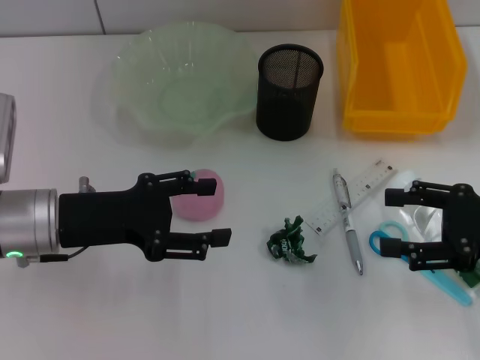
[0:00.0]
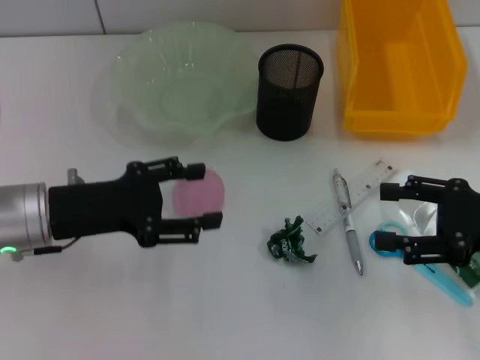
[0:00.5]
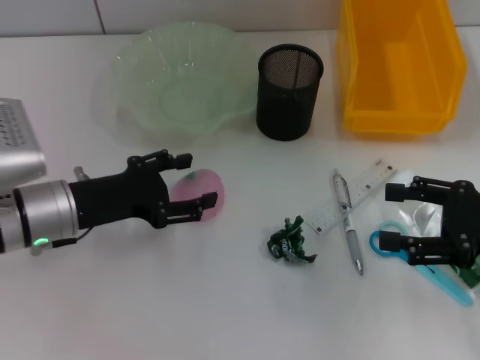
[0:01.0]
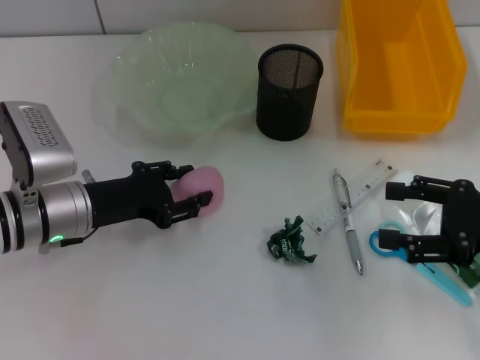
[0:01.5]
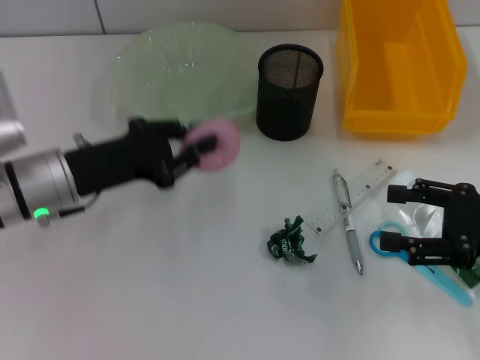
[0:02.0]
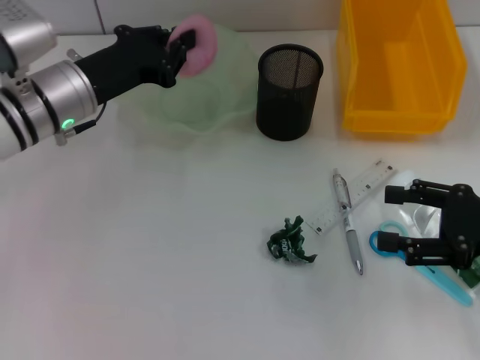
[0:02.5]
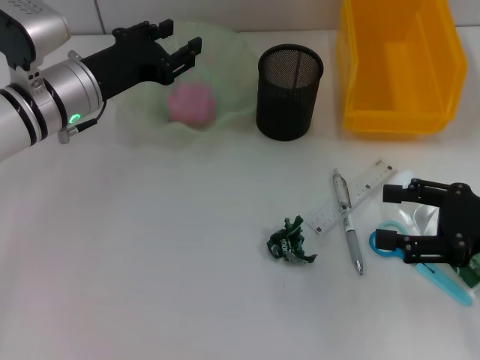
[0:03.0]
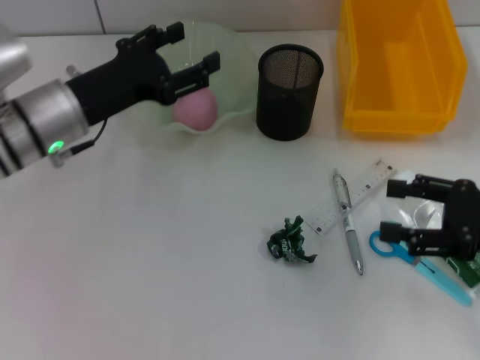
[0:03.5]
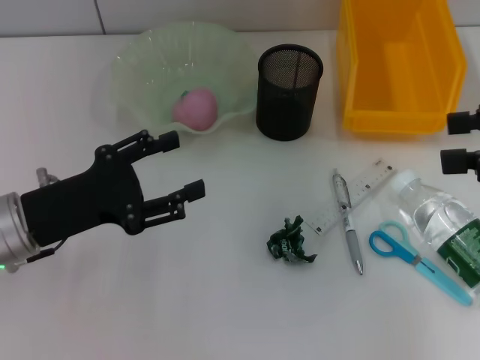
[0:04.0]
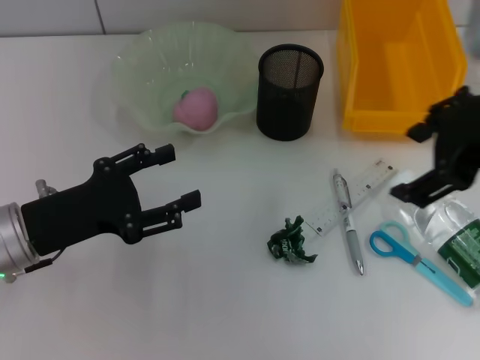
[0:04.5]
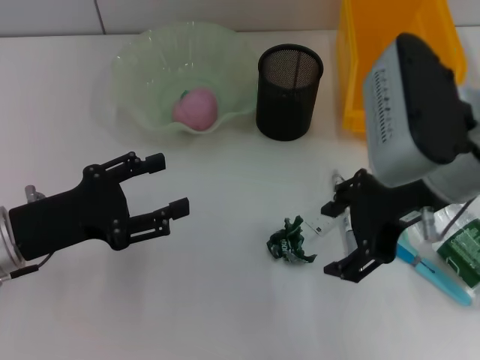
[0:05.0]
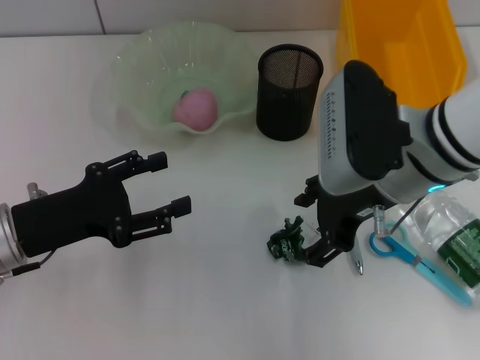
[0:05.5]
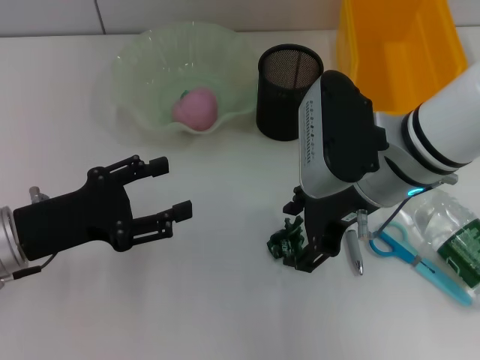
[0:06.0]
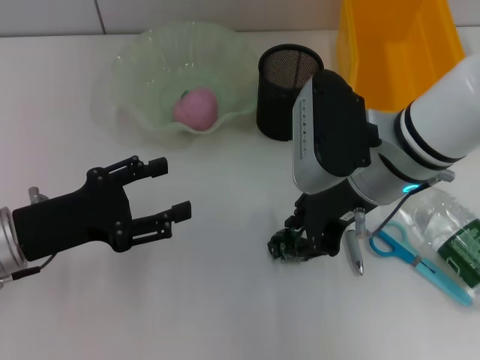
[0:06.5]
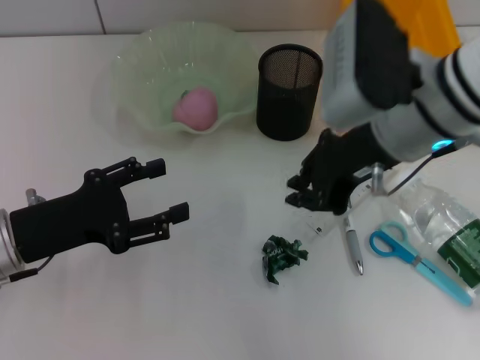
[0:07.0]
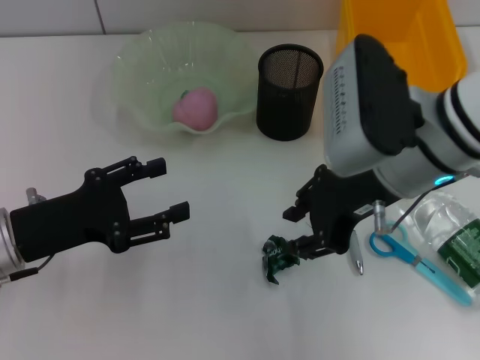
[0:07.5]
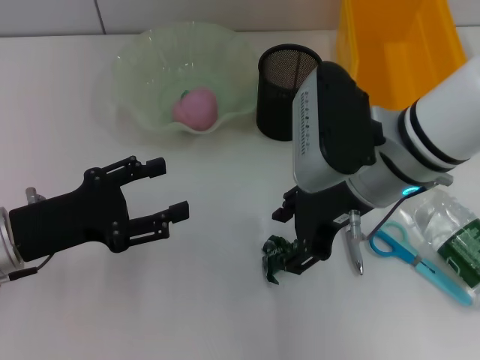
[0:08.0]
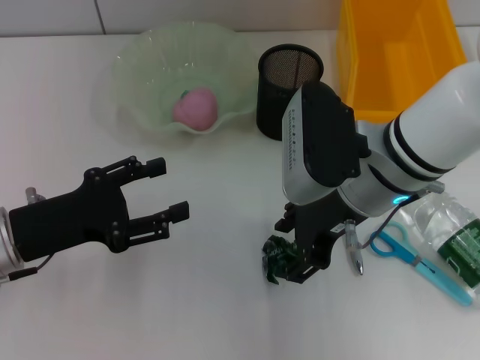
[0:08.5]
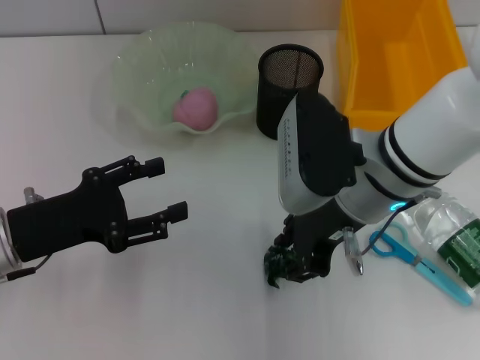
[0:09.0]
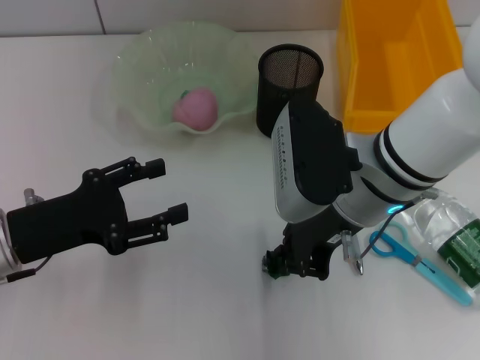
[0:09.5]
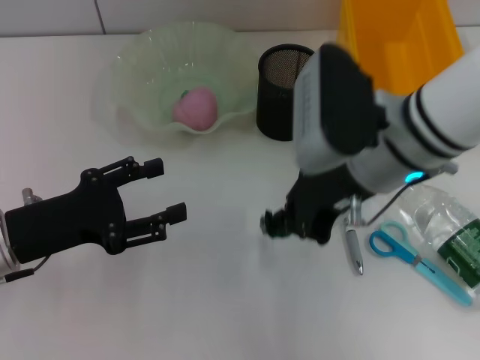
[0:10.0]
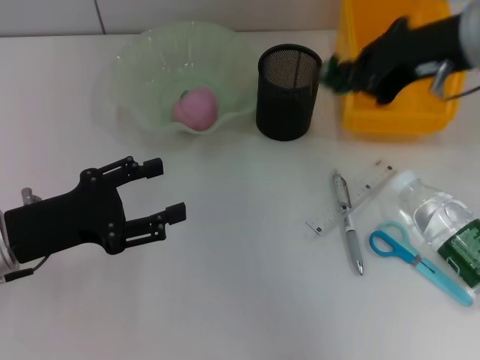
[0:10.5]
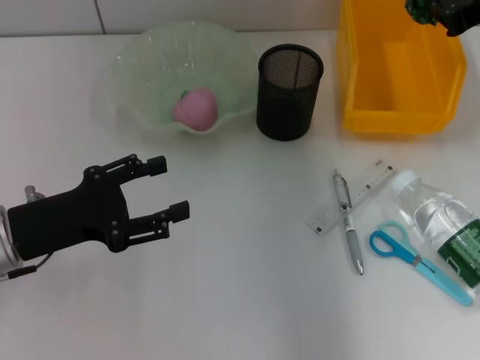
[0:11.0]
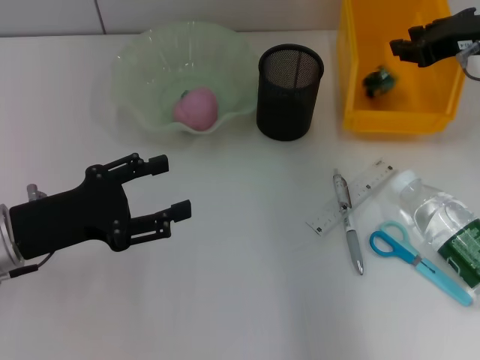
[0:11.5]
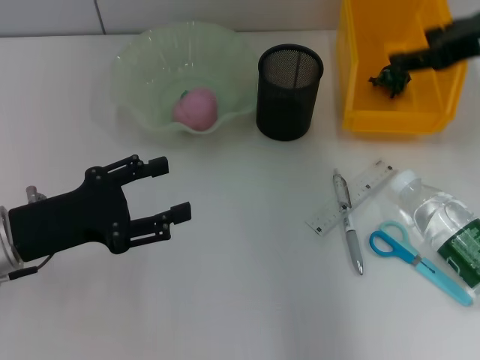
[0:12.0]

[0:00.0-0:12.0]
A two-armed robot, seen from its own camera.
Step, 0:00.0 to 0:01.5: Grab the peach with the left hand.
Step, 0:02.0 to 0:02.5: Place the peach into the fruit bowl with the left hand.
Step, 0:03.0 to 0:09.0: Grab the plastic with the right hand.
Step, 0:09.5 to 0:11.5: Place the plastic into the trash can with the right hand.
0:00.0 to 0:02.0: The left gripper closes.
0:02.0 to 0:04.0: The left gripper opens. The right gripper shifts about 10 cm upward.
0:04.0 to 0:06.0: The right gripper shifts about 20 cm to the left.
0:06.0 to 0:08.0: The right gripper closes and opens again.
0:08.0 to 0:10.0: The right gripper closes.
0:10.0 to 0:12.0: The right gripper moves to the right, about 15 cm, and opens up.

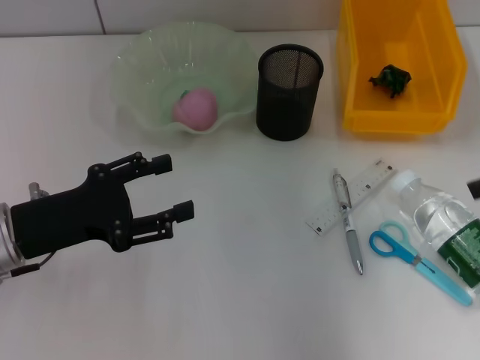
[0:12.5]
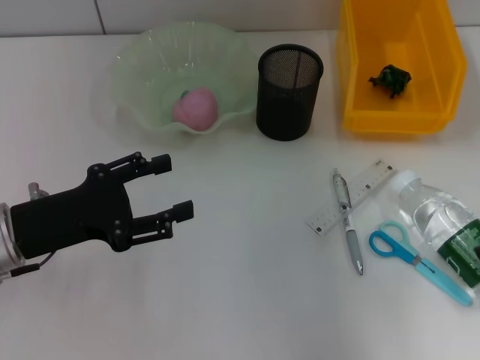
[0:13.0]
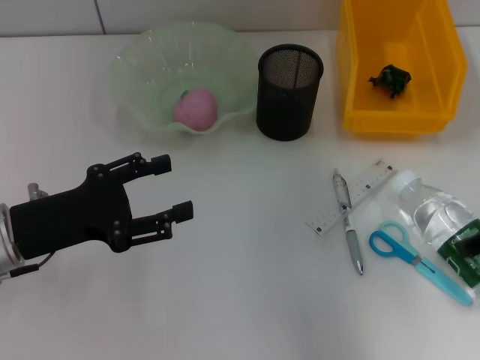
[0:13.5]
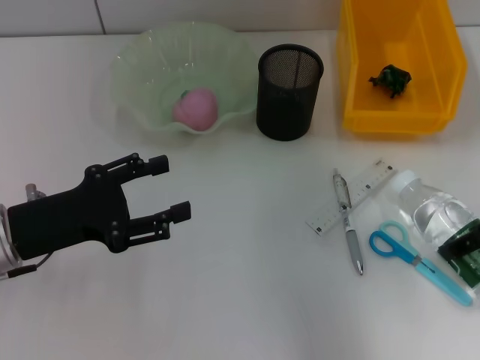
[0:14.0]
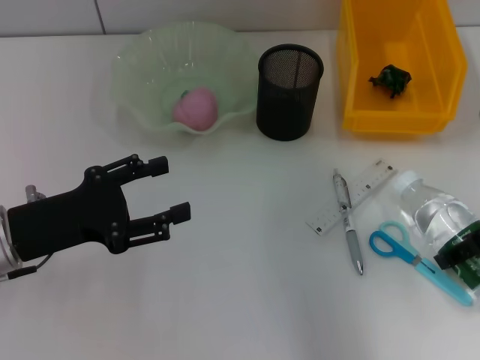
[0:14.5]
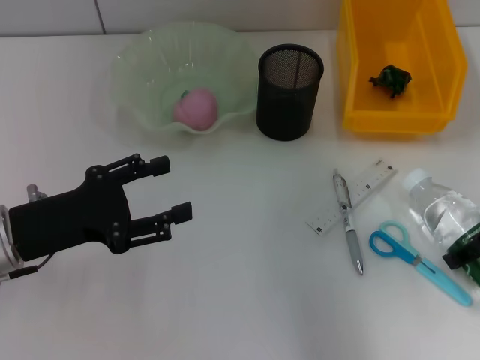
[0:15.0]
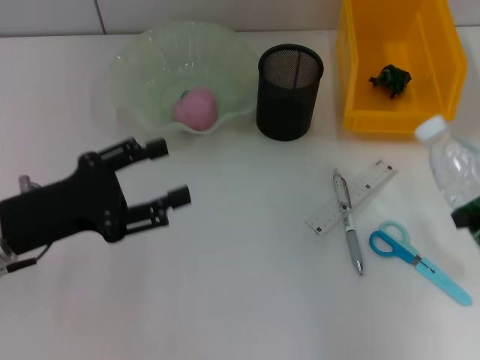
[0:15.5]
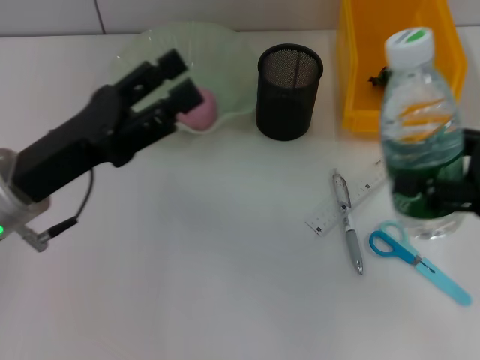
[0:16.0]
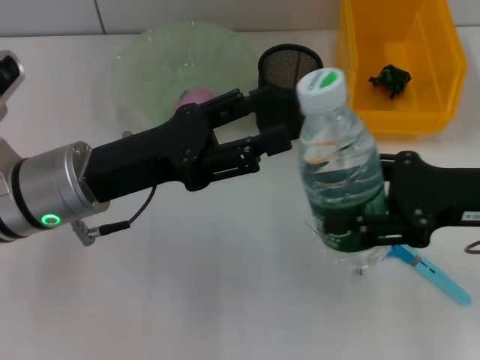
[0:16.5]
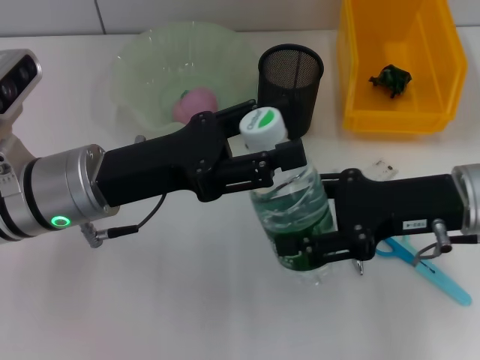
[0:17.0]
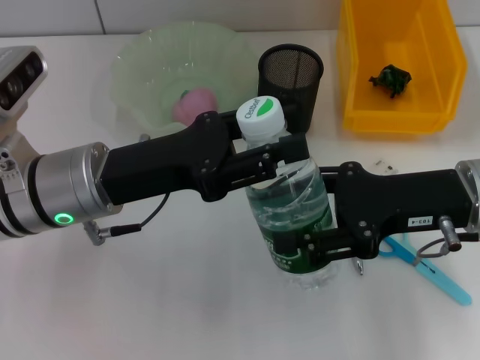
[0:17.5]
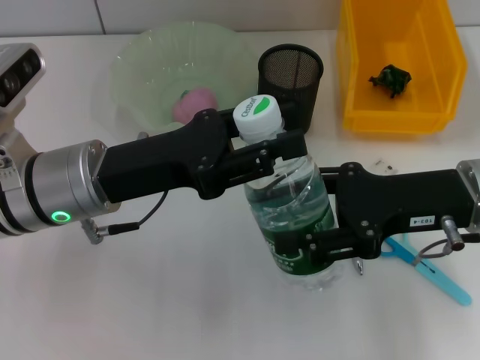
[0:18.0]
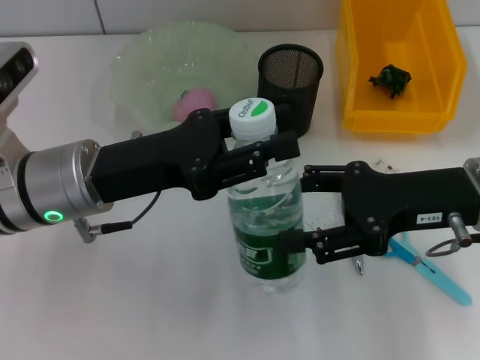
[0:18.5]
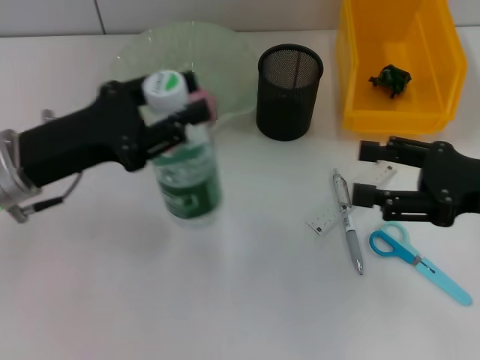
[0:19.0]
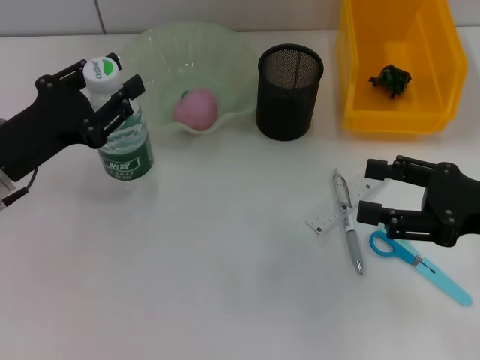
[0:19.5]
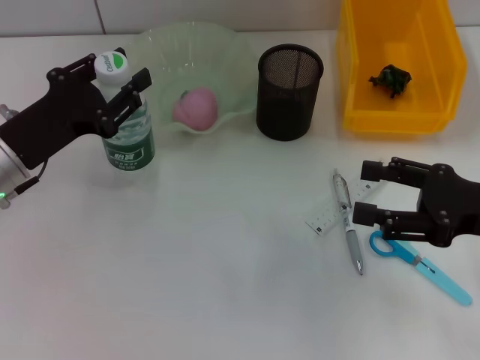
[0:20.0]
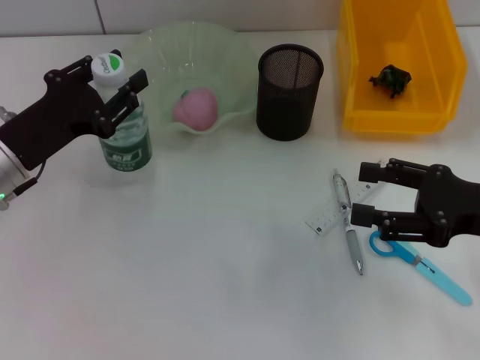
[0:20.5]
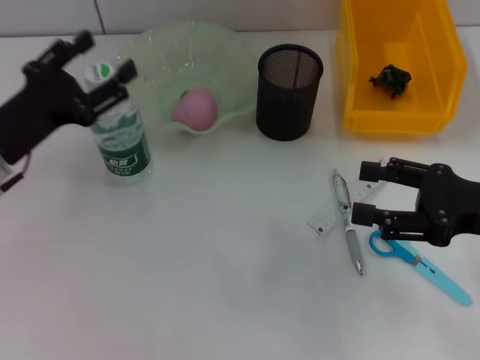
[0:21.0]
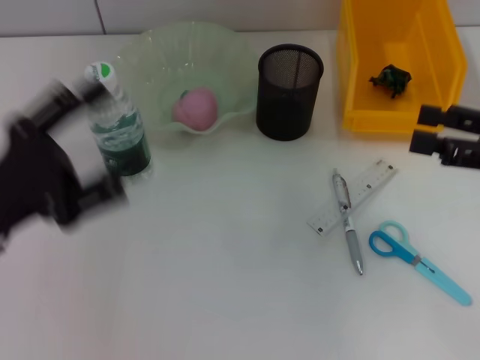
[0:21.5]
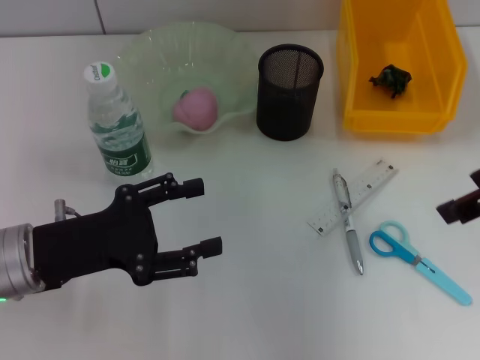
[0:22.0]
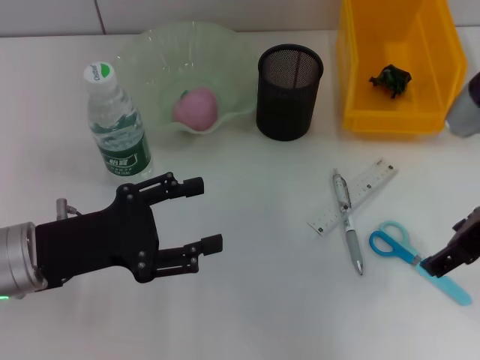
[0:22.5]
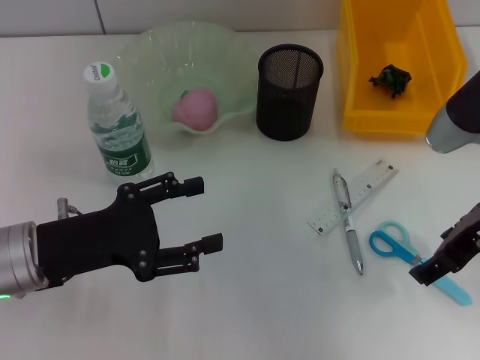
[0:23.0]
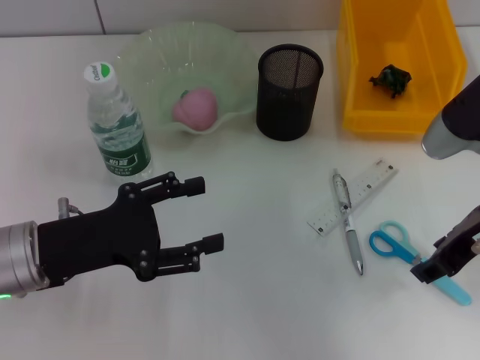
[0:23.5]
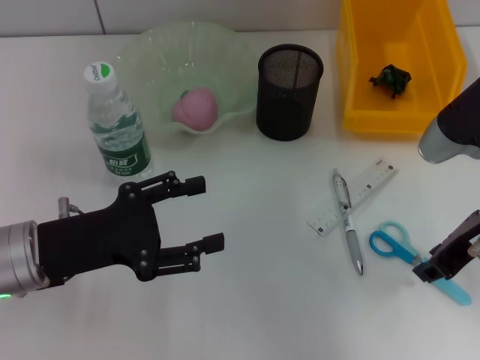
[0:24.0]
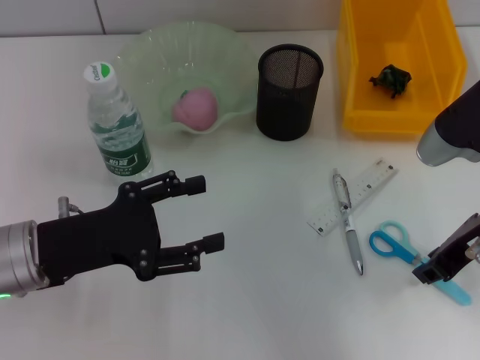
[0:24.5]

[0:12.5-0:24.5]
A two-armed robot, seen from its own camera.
Step, 0:12.5 to 0:14.5: Grab the water bottle with the right hand.
Step, 0:15.5 to 0:18.0: Pass the water bottle from the right hand to the left hand.
Step, 0:18.5 to 0:20.5: Place the water bottle on the table with the left hand.
0:12.5 to 0:14.5: The right gripper is displaced downward by about 10 cm.
0:14.5 to 0:16.5: The left gripper travels to the right by about 10 cm.
0:16.5 to 0:18.5: The left gripper closes.
0:18.5 to 0:20.5: The right gripper moves to the right, roughly 5 cm, while the left gripper travels to the left by about 10 cm.
0:20.5 to 0:22.5: The right gripper is displaced upward and to the left by roughly 10 cm. The left gripper heads backward, covering about 5 cm, and opens up.
0:22.5 to 0:24.5: The right gripper closes its fingers.

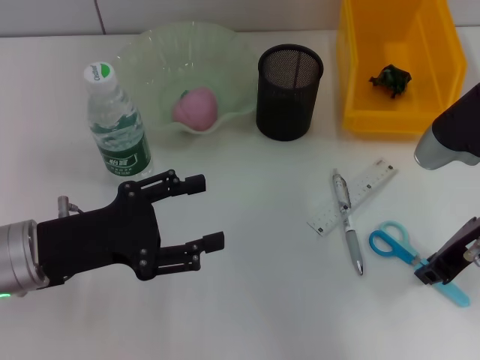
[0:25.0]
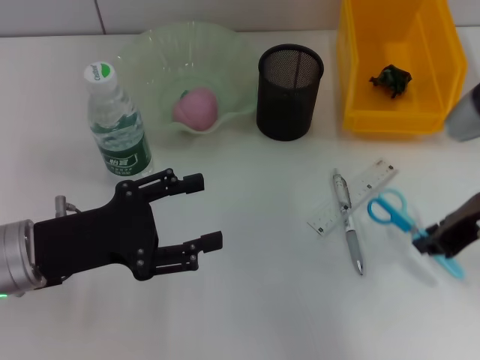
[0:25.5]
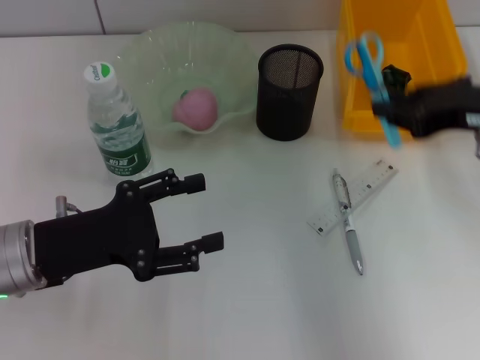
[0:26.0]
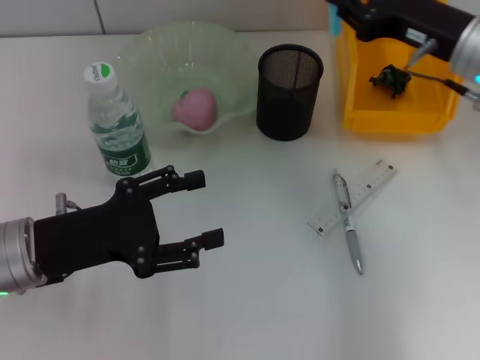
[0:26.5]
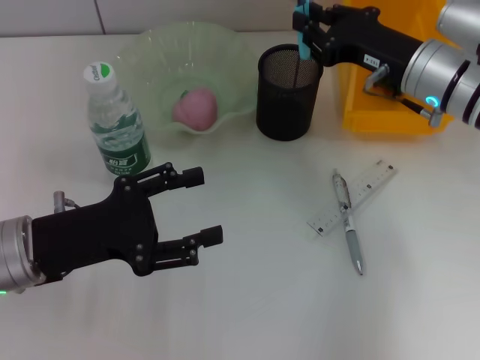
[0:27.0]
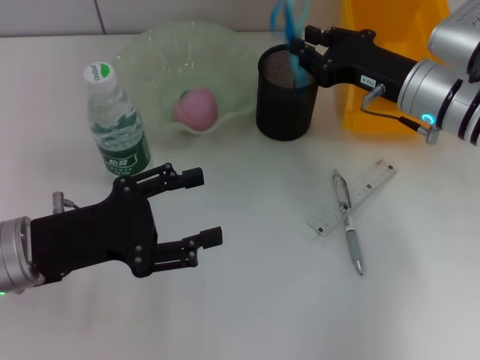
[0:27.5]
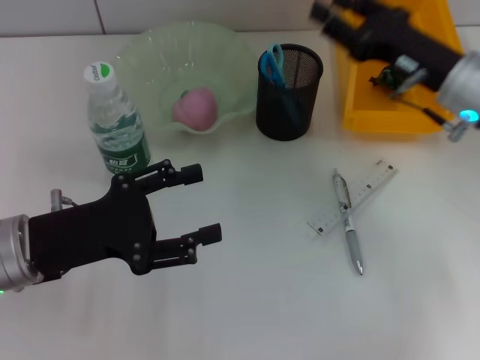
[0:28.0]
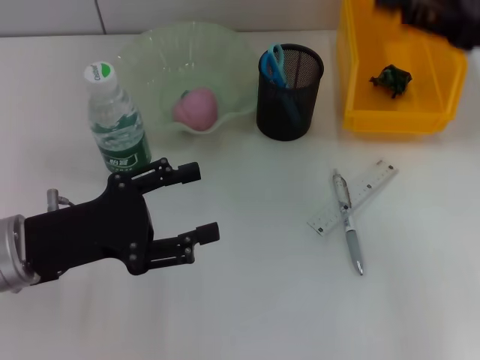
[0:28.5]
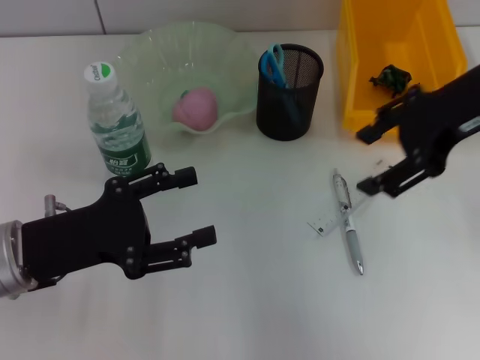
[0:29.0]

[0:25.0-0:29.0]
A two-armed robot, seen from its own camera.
Step, 0:25.5 to 0:27.5: Place the blue scissors into the pen holder with the right hand.
0:25.0 to 0:27.0: The right gripper goes roughly 10 cm forward.
0:27.0 to 0:29.0: The right gripper travels upward by some 10 cm, and opens up.
